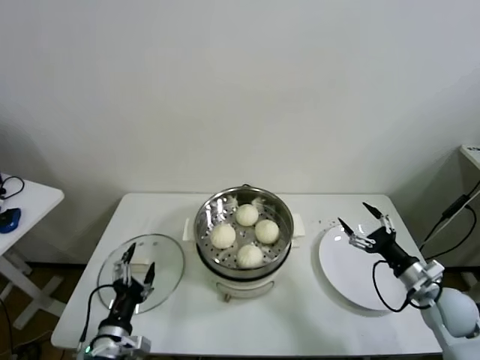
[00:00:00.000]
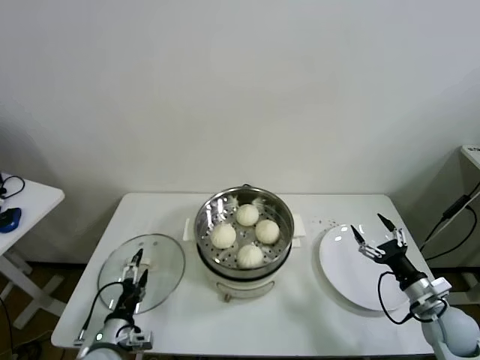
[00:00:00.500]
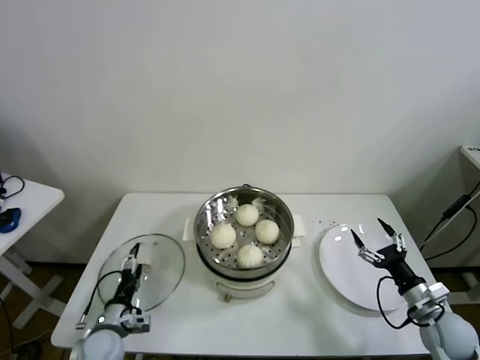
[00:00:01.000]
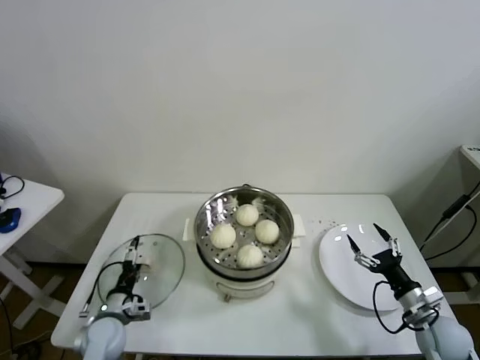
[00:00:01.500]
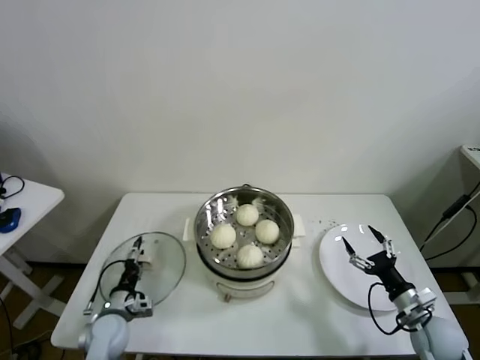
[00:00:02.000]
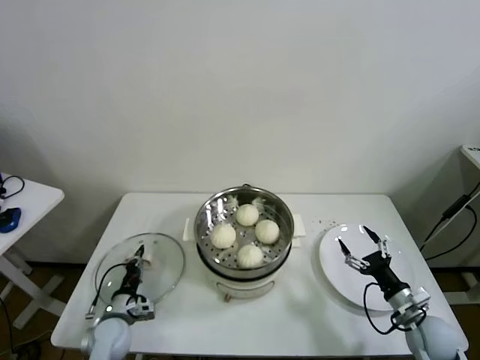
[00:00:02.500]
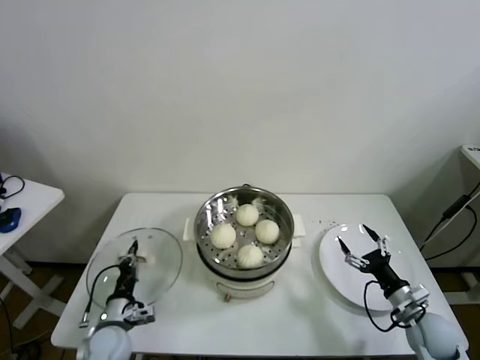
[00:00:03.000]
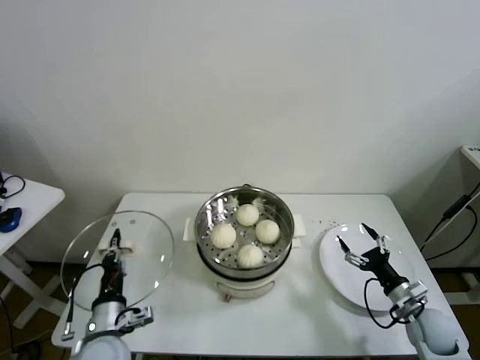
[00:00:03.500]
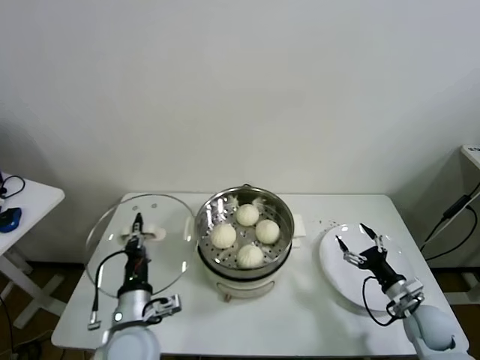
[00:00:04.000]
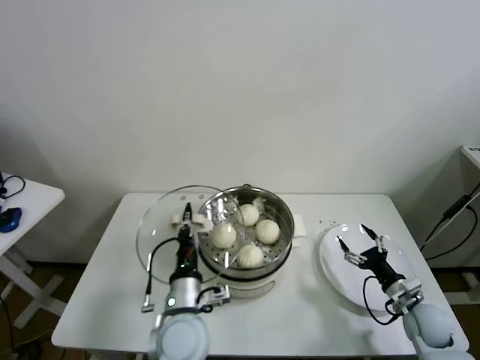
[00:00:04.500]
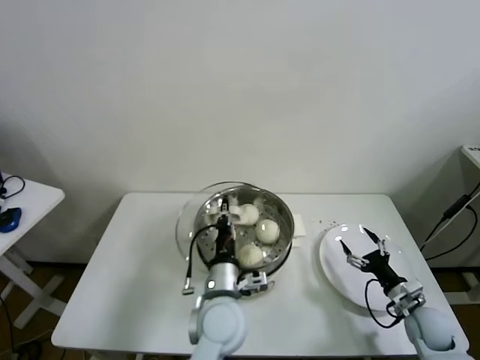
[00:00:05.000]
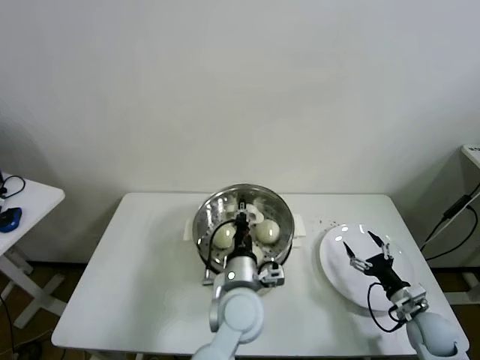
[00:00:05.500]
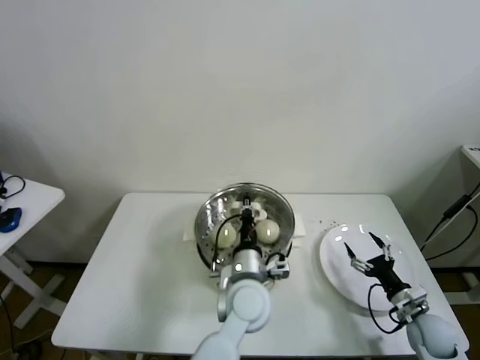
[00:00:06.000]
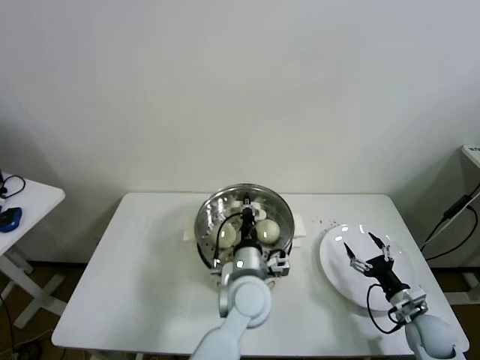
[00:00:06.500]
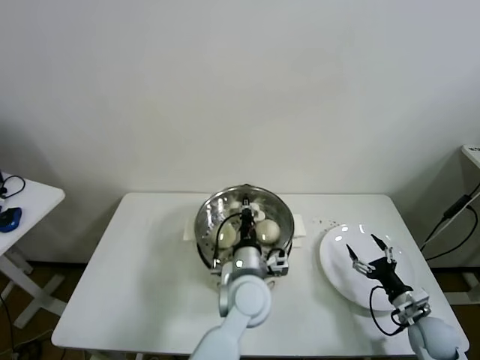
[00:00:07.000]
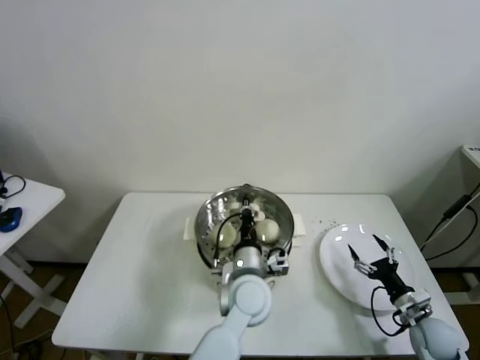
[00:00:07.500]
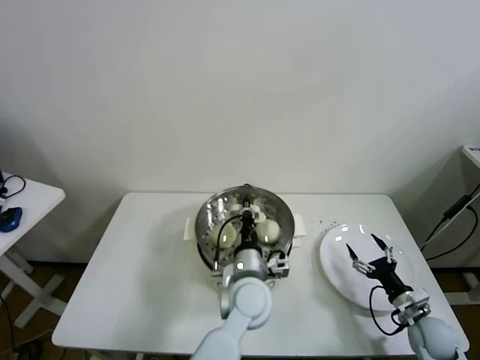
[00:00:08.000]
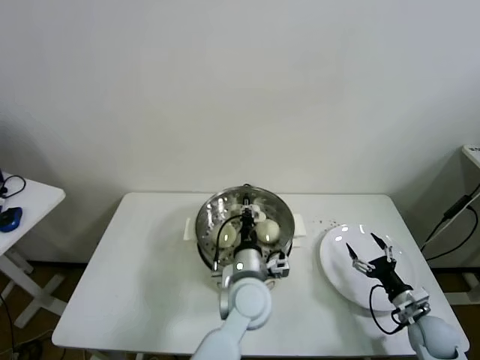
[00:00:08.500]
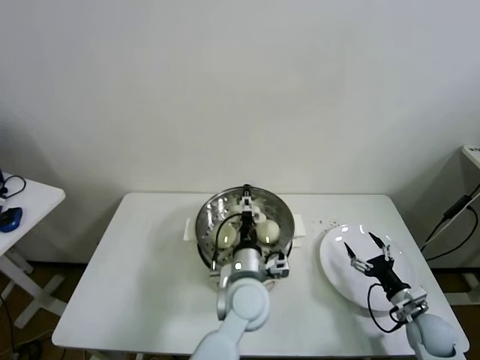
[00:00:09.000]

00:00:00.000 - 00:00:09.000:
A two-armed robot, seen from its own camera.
Task of the whole recording: take steamed baozi put them in steamer.
Step, 00:00:00.000 - 00:00:02.500: Grasp the pot lid with left gripper.
00:00:00.000 - 00:00:02.000: The right gripper is displaced downward by roughly 5 cm, while the left gripper shifts approximately 15 cm forward, downward and to the left.
00:00:02.000 - 00:00:04.500: The left gripper shifts some 25 cm to the right and upward, and closes up.
00:00:04.500 - 00:00:07.000: The left gripper shifts some 15 cm to the right and forward.
00:00:07.000 - 00:00:09.000: The left gripper opens up.

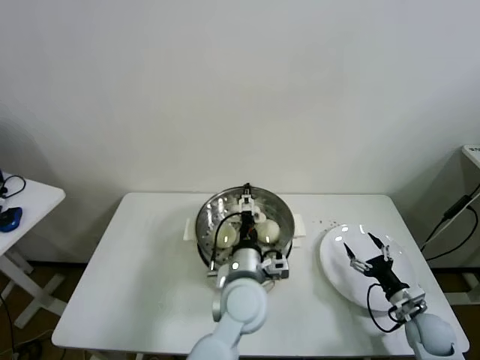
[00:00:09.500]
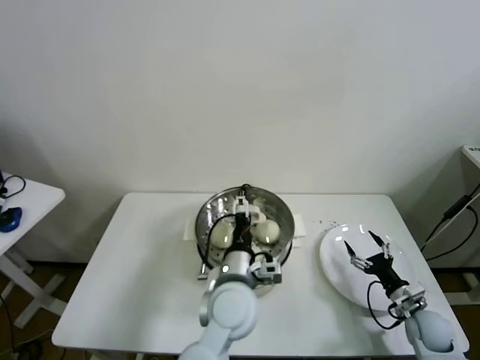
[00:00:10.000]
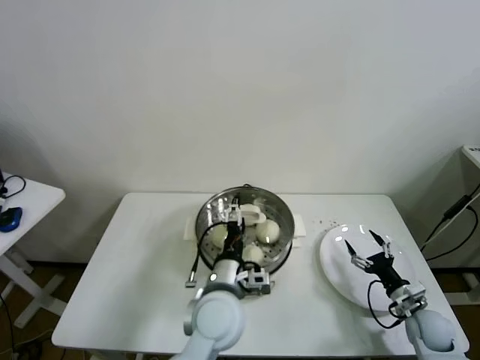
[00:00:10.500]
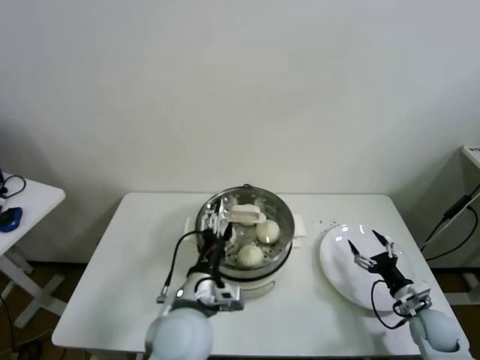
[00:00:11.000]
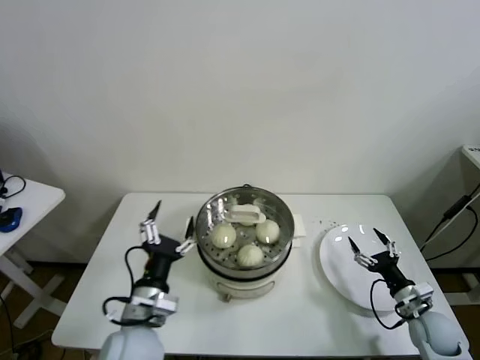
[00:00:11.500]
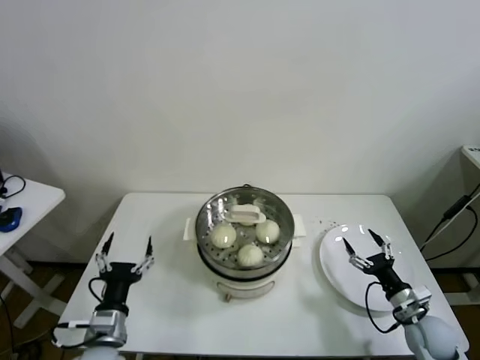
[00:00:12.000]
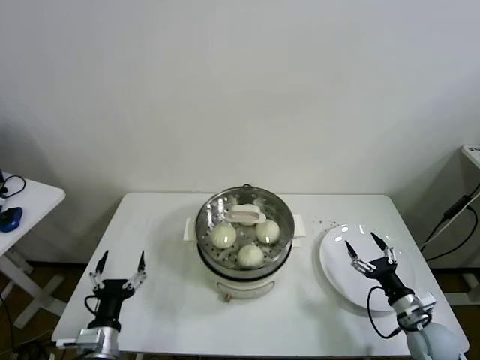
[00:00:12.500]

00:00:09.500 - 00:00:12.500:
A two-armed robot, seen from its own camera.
Task of the whole recording: take steamed baozi put them in steamer.
00:00:09.500 - 00:00:11.000: The left gripper is displaced to the left and backward by roughly 10 cm.
00:00:11.000 - 00:00:12.500: The left gripper is displaced to the left and downward by roughly 25 cm.
